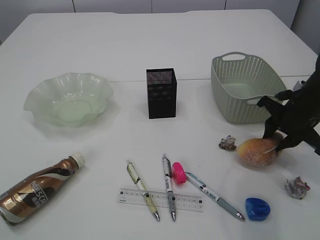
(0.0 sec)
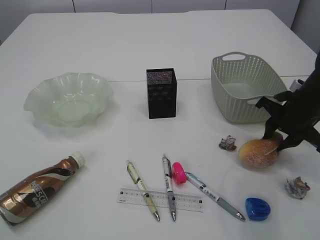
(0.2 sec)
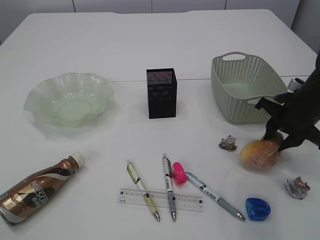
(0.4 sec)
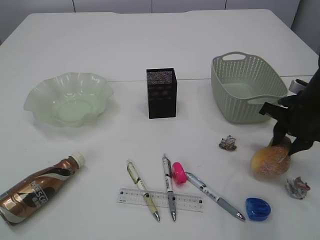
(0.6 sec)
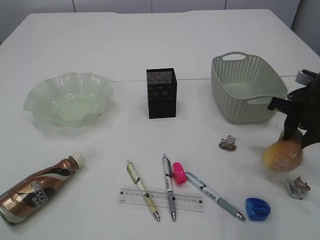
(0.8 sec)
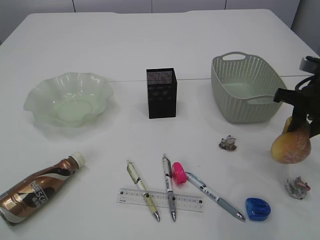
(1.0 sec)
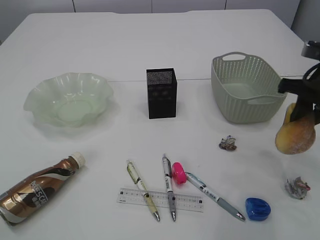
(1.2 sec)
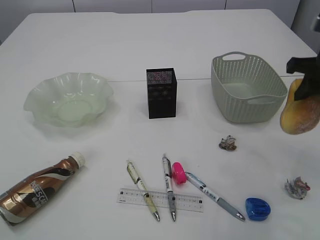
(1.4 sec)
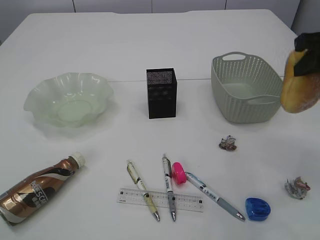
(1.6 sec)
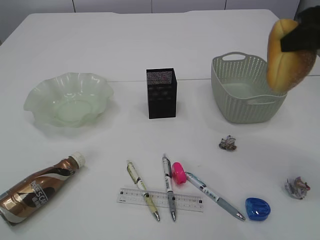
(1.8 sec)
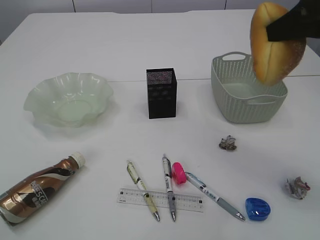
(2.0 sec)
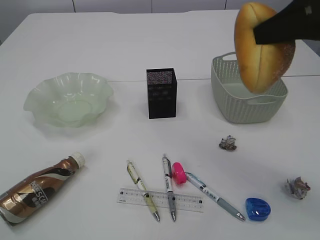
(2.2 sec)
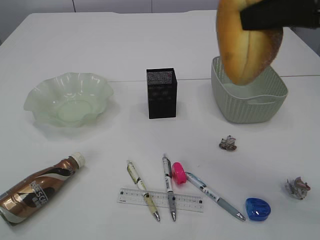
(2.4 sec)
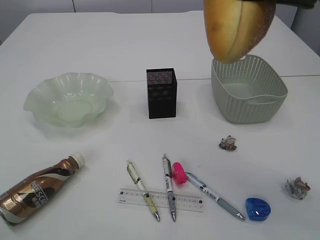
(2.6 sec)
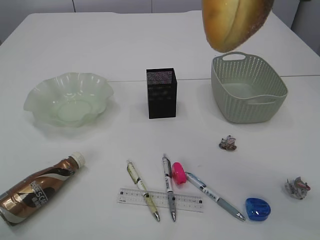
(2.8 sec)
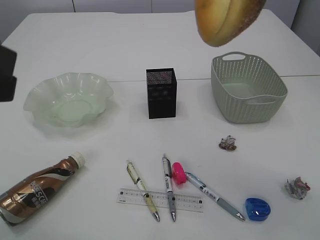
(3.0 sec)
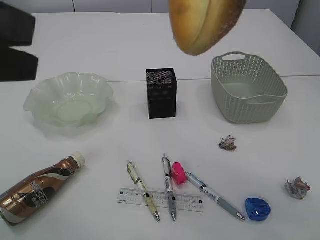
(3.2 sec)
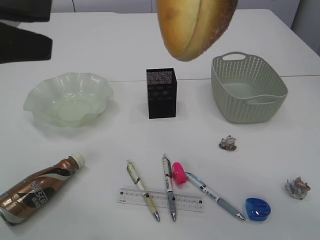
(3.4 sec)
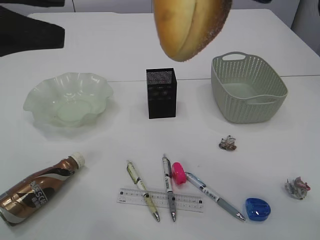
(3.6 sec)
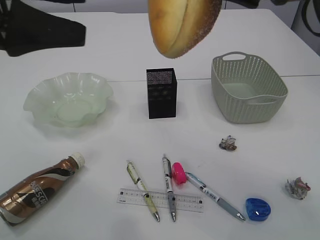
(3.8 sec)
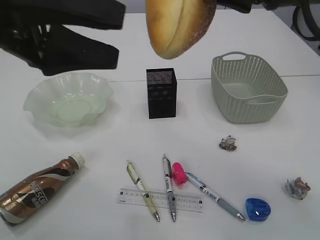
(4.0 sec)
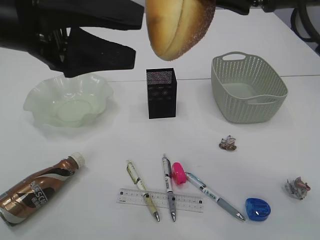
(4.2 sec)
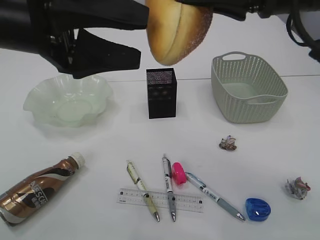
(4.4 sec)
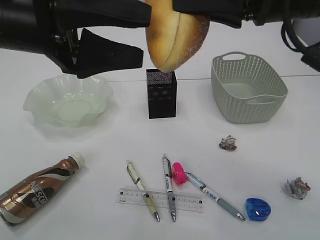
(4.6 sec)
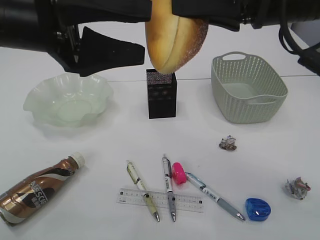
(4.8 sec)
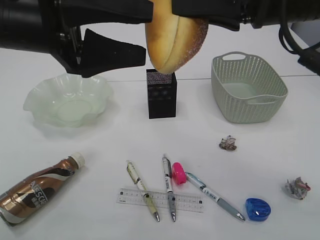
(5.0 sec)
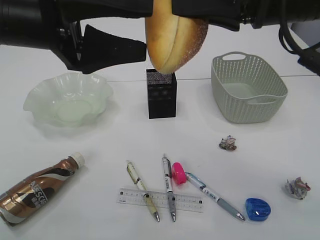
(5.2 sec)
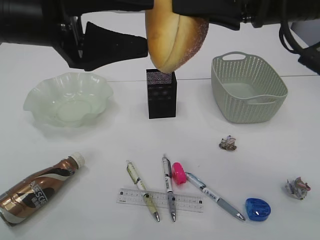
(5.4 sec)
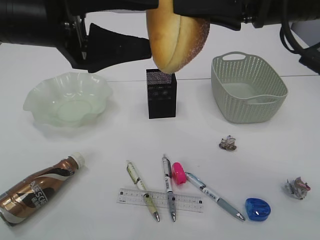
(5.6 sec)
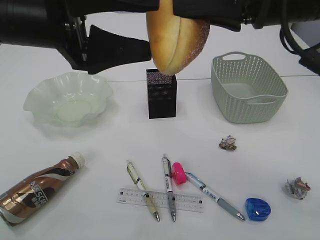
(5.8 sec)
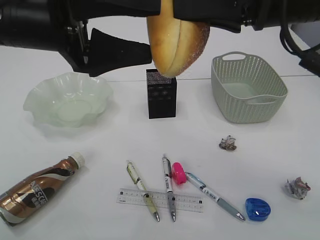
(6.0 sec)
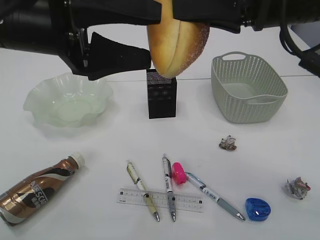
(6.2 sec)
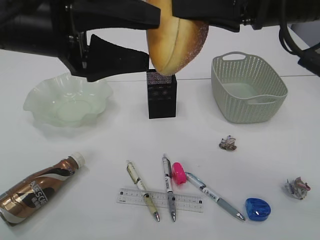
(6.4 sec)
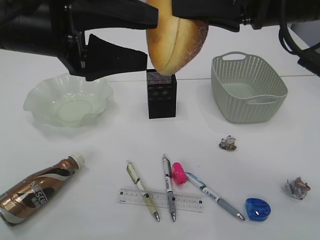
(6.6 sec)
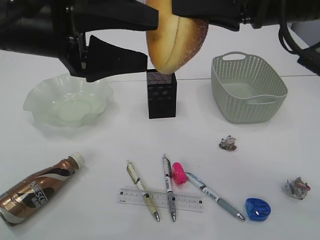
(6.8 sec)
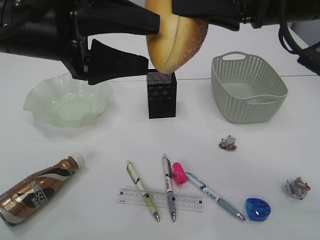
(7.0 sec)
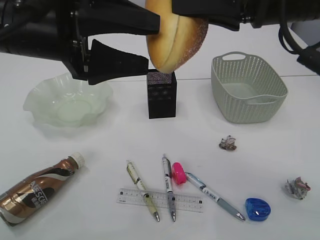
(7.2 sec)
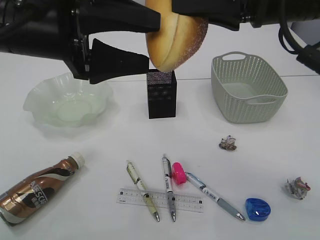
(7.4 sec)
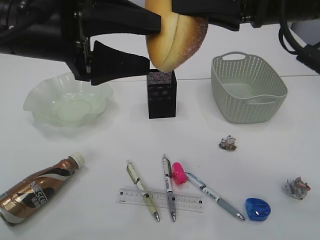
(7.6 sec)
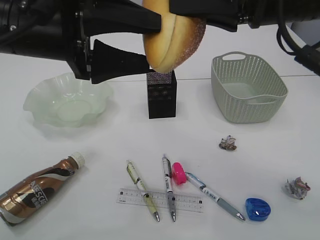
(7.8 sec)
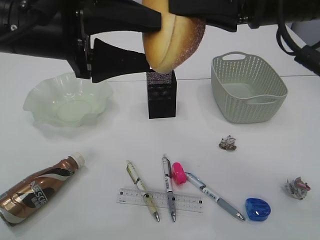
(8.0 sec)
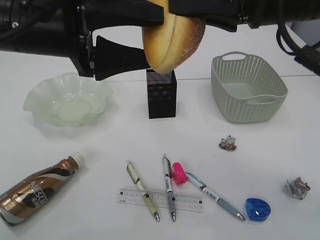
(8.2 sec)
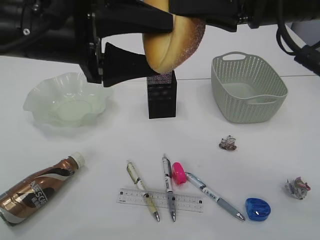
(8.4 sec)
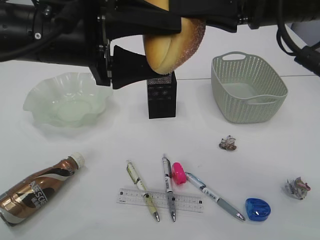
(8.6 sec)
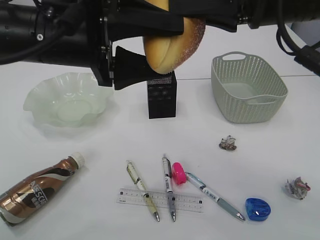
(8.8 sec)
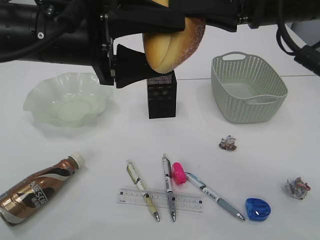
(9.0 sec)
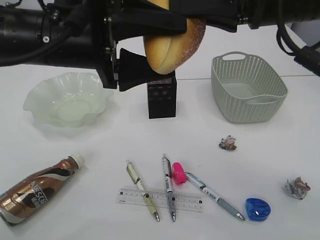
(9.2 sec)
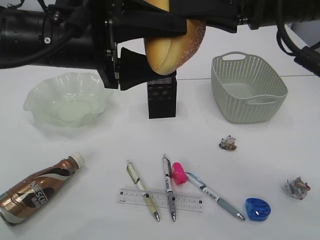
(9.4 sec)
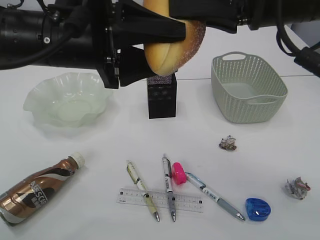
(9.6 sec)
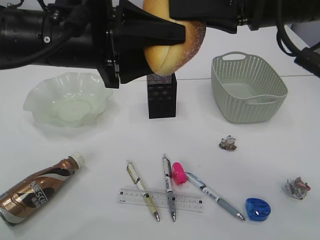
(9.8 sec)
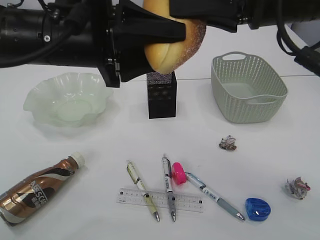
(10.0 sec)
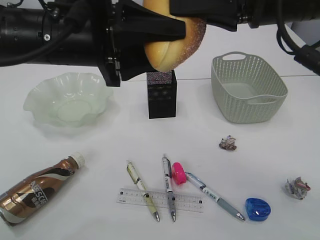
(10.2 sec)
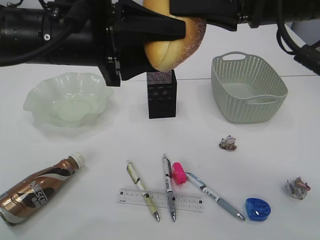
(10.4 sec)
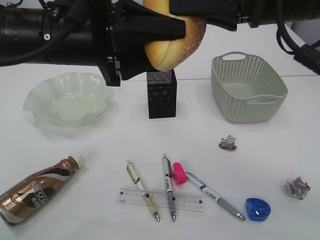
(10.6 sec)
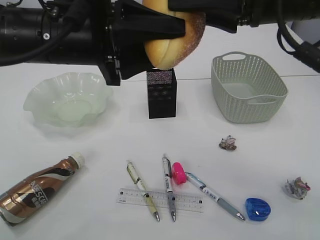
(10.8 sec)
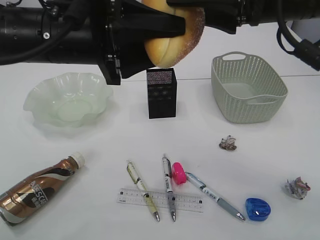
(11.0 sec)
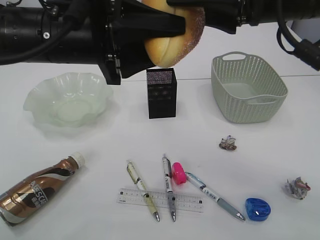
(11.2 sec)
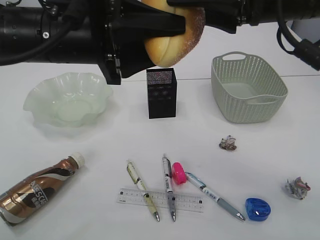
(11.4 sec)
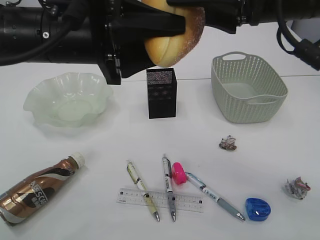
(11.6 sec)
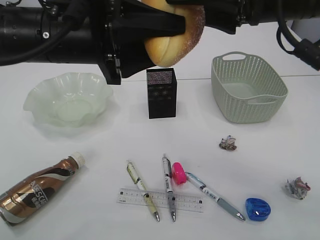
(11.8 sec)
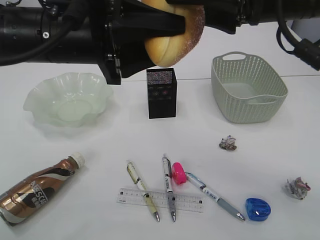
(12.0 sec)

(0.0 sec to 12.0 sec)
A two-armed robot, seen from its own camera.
0.0 sec - 1.6 sec: The right gripper moves upward, some 15 cm.
1.6 sec - 3.0 sec: The left gripper goes approximately 5 cm forward, and opens its fingers. The right gripper travels upward, to the left and backward by roughly 15 cm.
3.0 sec - 4.4 sec: The left gripper shifts roughly 15 cm forward and to the right, and opens its fingers, while the right gripper changes place by roughly 5 cm.
4.4 sec - 9.0 sec: There are only small adjustments of the grippers.
9.0 sec - 10.4 sec: The left gripper closes up.
10.4 sec - 12.0 sec: The right gripper opens its fingers.

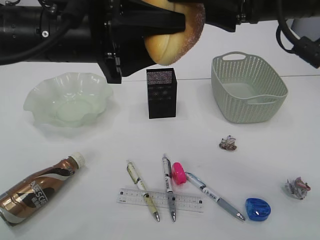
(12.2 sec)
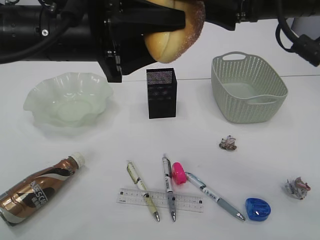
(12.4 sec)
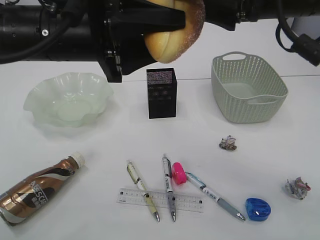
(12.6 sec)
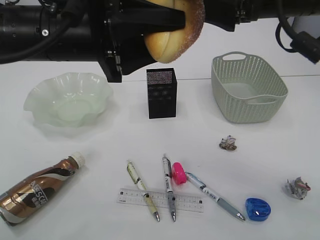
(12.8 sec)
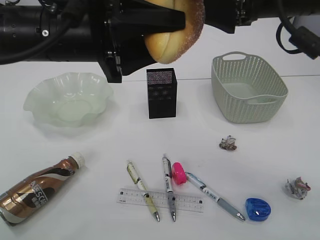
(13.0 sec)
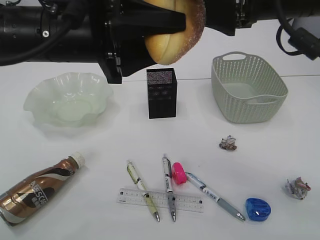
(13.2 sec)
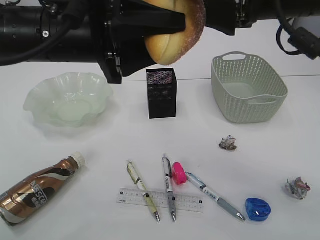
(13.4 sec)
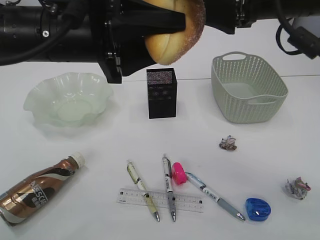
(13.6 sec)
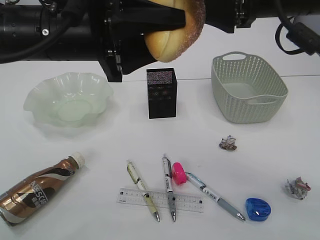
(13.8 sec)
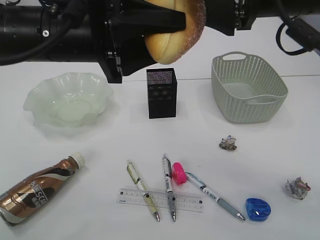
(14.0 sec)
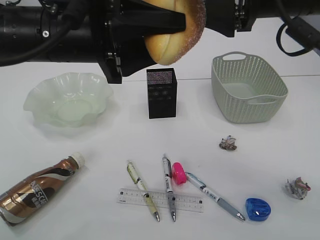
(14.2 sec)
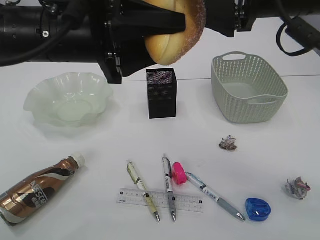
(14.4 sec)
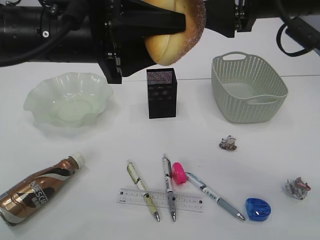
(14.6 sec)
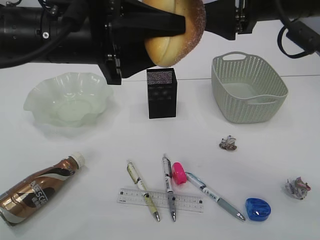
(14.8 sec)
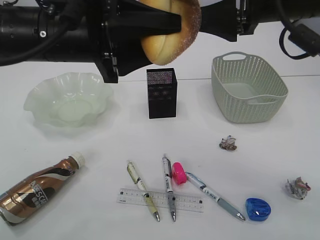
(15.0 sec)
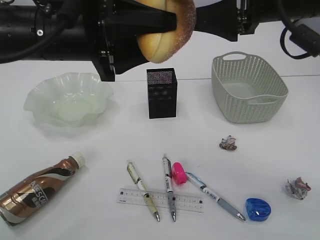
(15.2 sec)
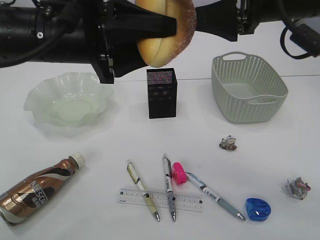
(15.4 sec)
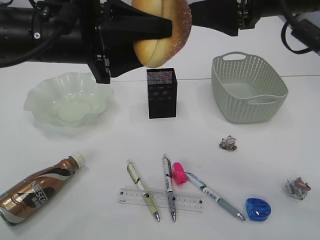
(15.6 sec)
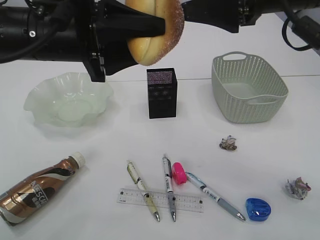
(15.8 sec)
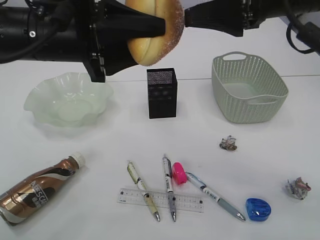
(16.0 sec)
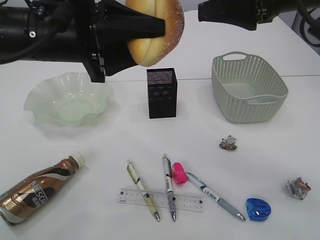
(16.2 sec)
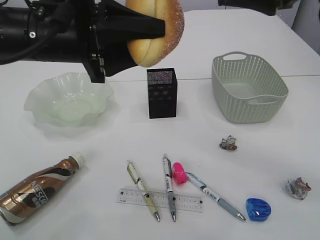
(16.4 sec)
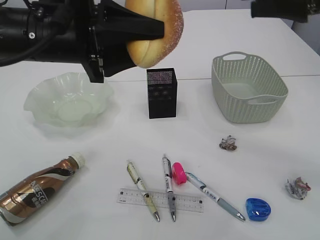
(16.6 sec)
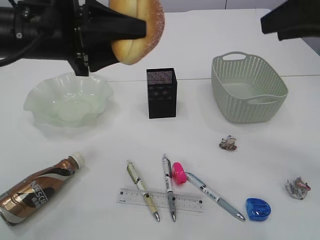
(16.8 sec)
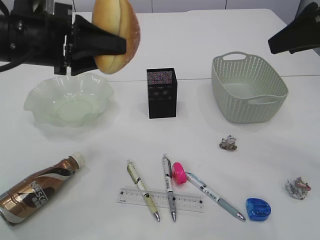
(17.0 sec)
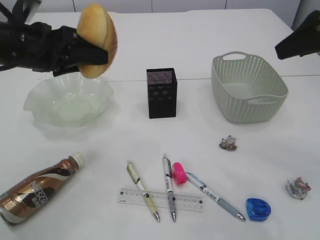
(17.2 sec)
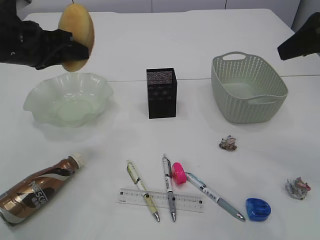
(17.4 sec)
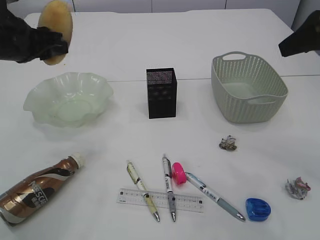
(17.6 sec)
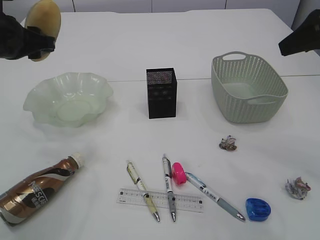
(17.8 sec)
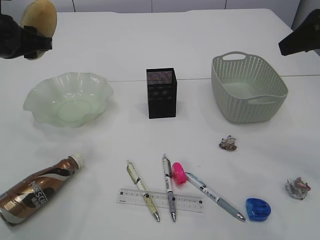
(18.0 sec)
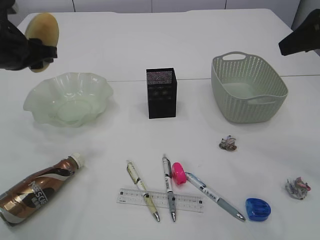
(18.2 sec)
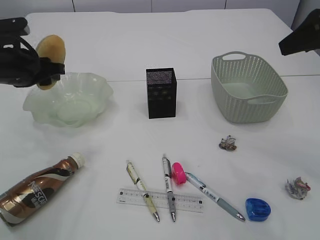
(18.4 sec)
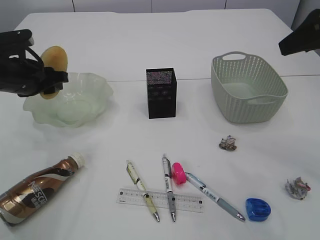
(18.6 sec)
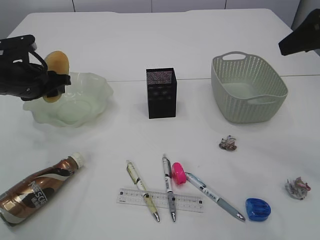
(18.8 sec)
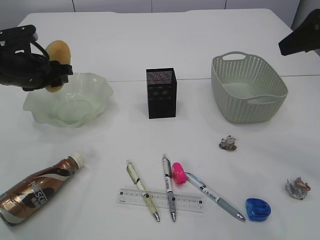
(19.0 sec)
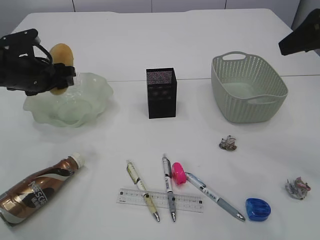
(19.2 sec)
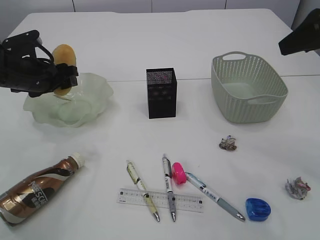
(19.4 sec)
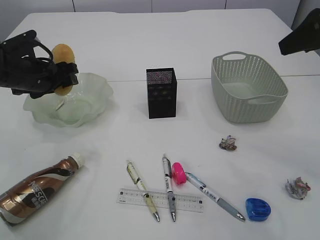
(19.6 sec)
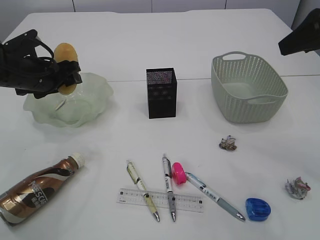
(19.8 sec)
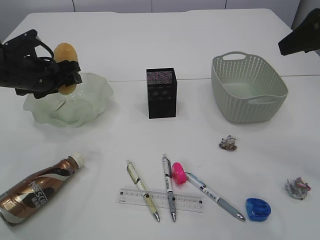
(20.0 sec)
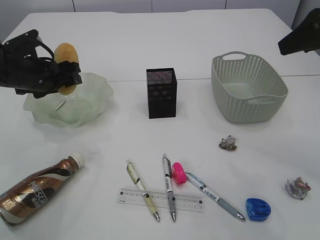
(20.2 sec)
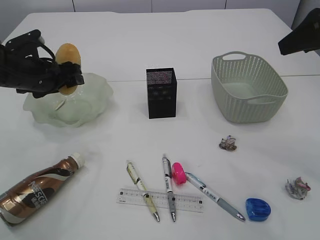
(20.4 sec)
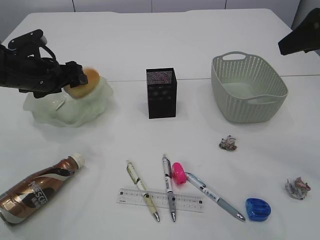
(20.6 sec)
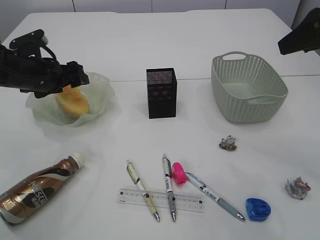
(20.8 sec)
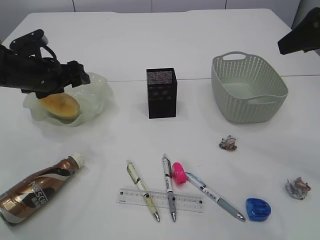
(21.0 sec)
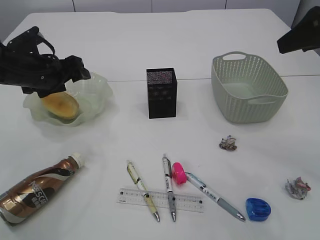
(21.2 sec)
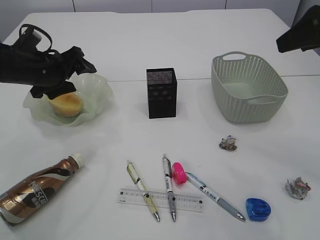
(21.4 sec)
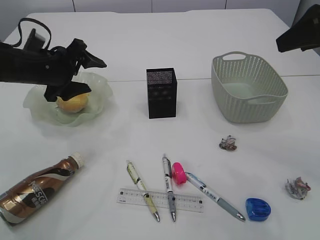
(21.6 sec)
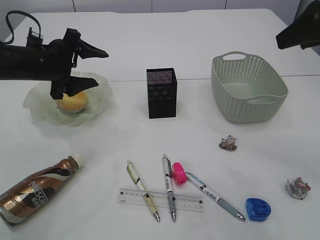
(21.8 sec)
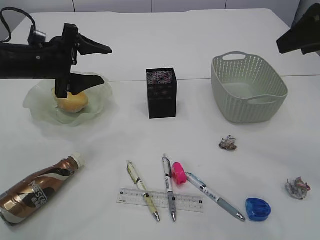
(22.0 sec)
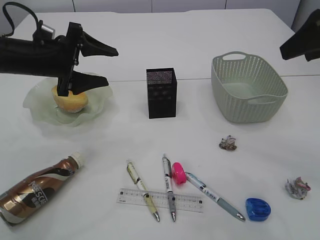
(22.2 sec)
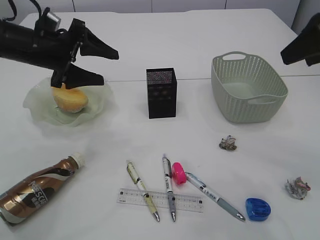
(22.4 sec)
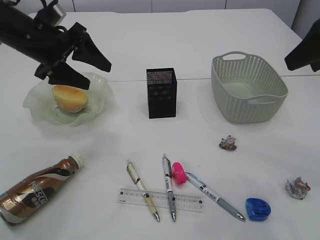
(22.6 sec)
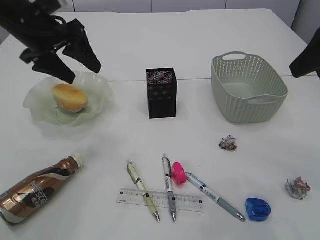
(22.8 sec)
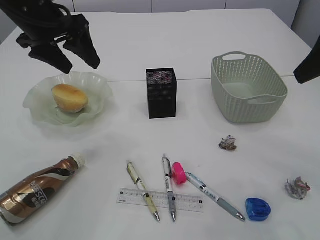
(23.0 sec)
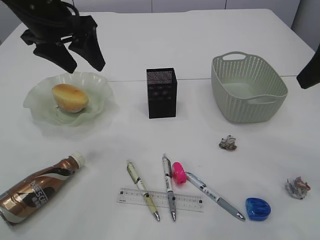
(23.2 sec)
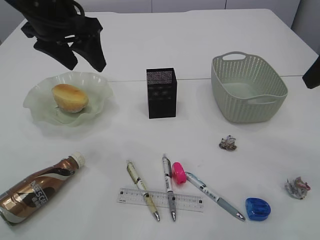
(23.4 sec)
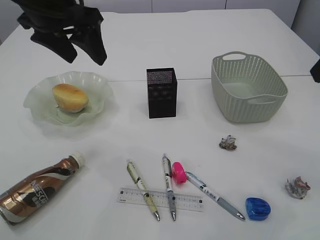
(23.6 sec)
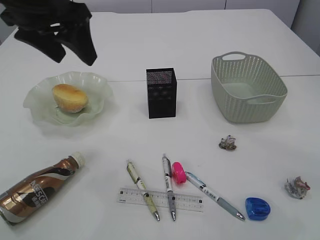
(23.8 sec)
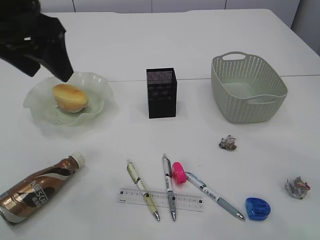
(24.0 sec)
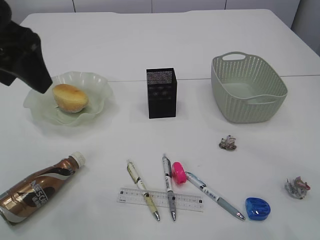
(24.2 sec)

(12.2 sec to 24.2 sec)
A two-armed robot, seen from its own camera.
Step, 12.2 sec - 16.2 sec: Hand over the bread.
Step, 16.4 sec - 22.2 sec: place the bread in the plate.
12.2 sec - 13.8 sec: The grippers make only small movements.
13.8 sec - 15.2 sec: Neither gripper changes place.
15.2 sec - 16.6 sec: The right gripper shifts roughly 10 cm to the right.
16.6 sec - 18.2 sec: The right gripper moves to the right, roughly 5 cm; the left gripper moves to the left, forward and downward, roughly 15 cm.
18.2 sec - 19.8 sec: The left gripper travels downward by roughly 5 cm, and opens its fingers.
19.8 sec - 21.2 sec: The grippers make only small movements.
21.2 sec - 22.6 sec: The left gripper is displaced upward by roughly 10 cm.
22.6 sec - 24.2 sec: The left gripper is displaced backward and upward by some 15 cm; the right gripper is displaced backward by about 10 cm.
